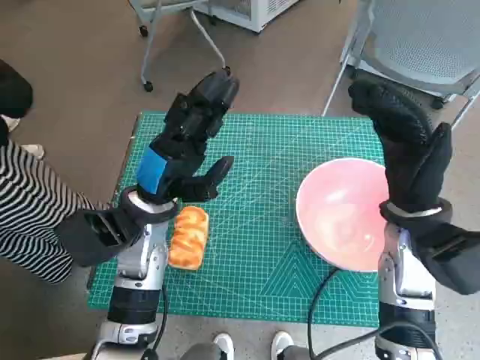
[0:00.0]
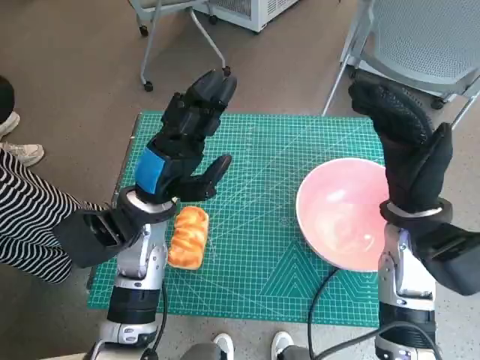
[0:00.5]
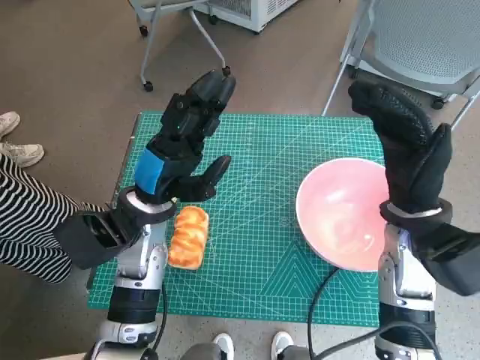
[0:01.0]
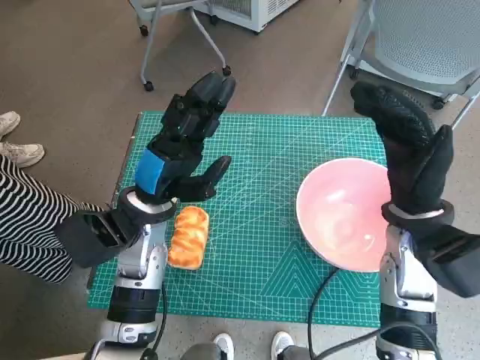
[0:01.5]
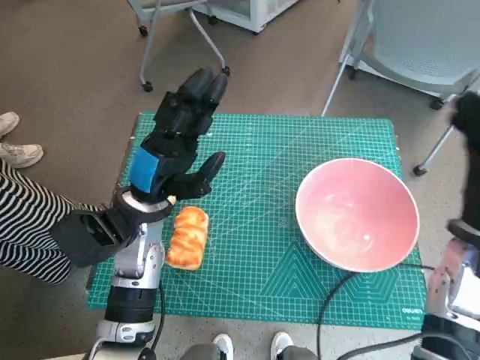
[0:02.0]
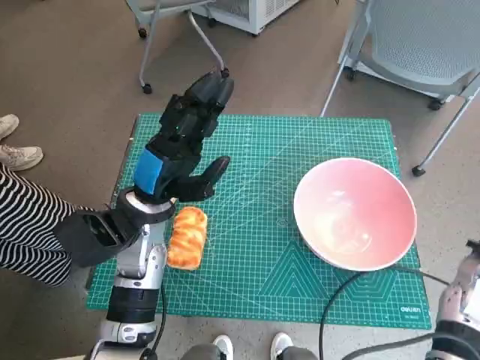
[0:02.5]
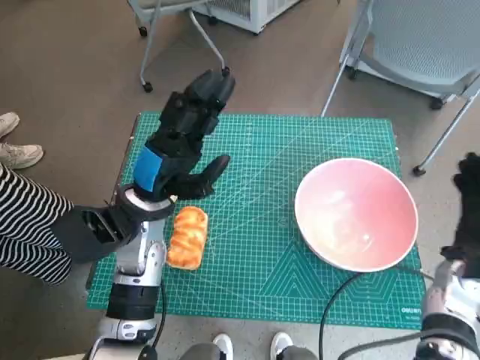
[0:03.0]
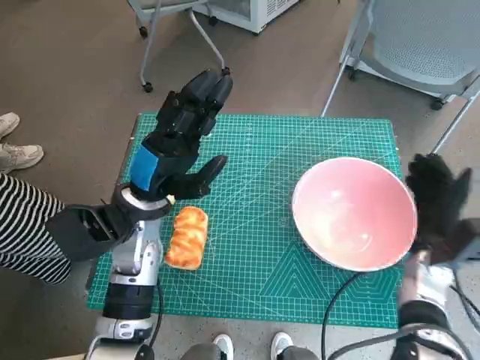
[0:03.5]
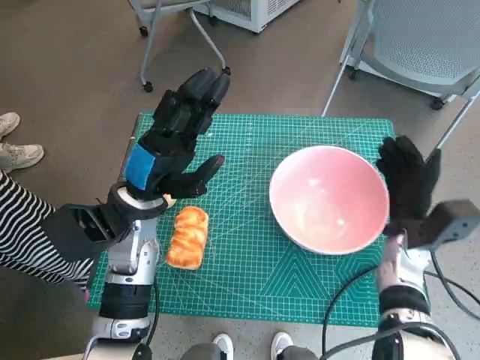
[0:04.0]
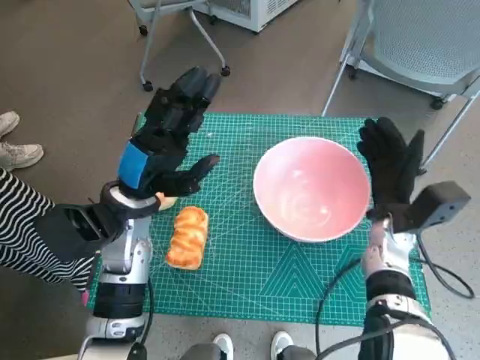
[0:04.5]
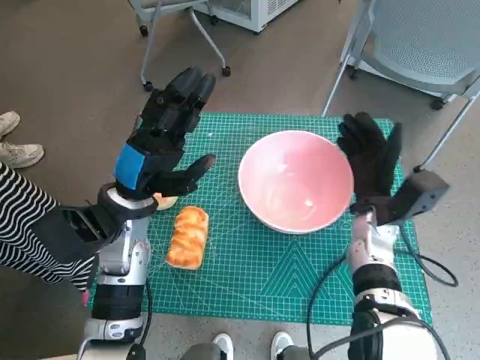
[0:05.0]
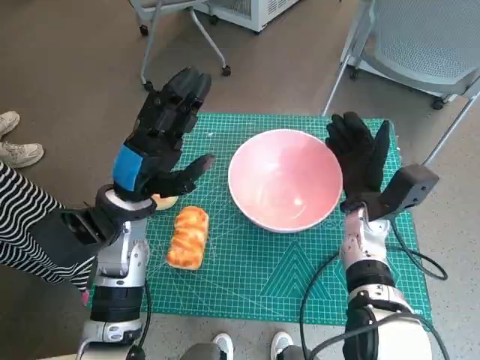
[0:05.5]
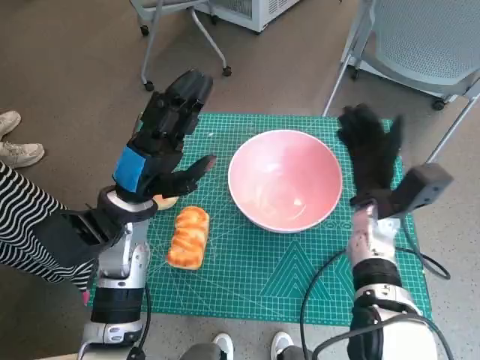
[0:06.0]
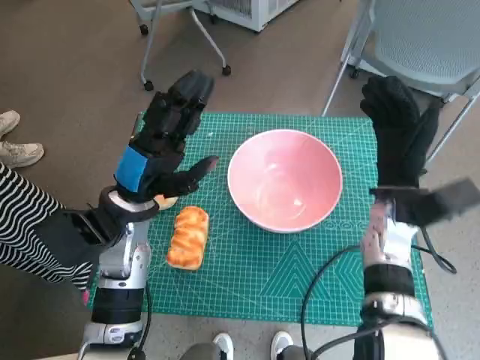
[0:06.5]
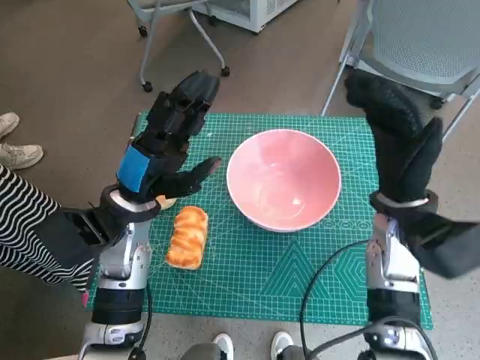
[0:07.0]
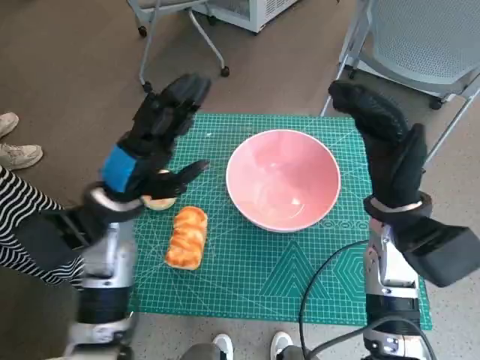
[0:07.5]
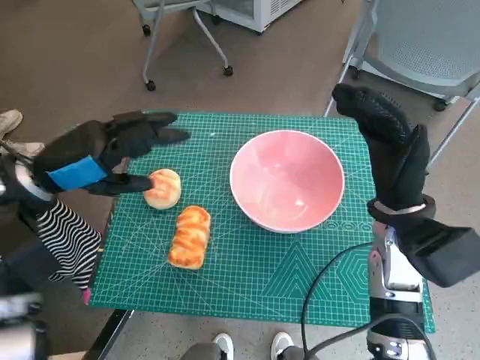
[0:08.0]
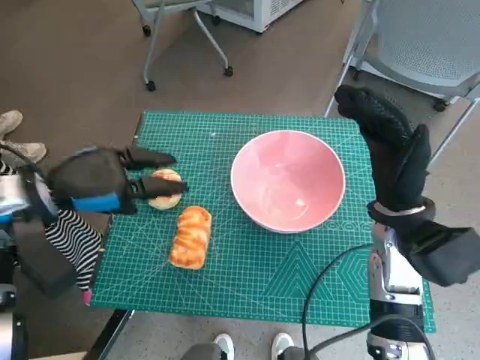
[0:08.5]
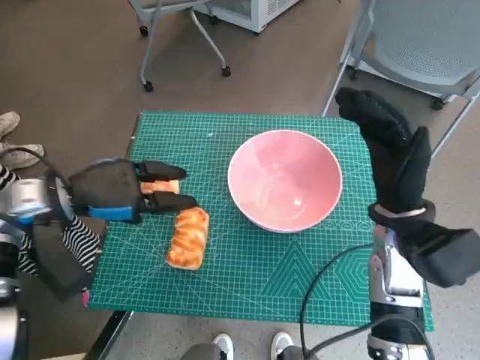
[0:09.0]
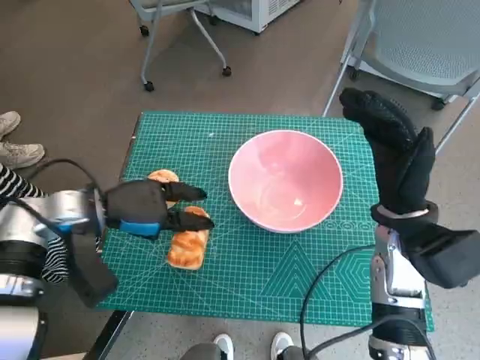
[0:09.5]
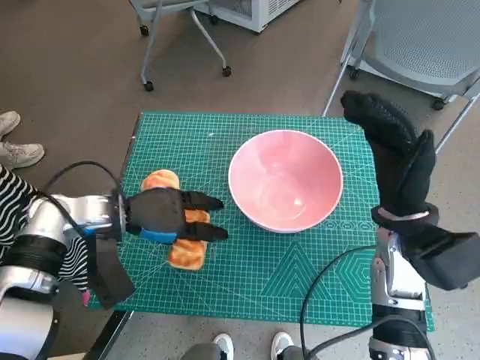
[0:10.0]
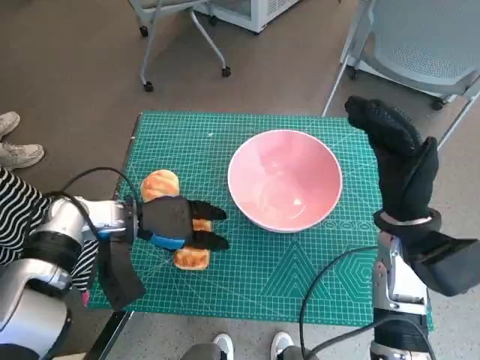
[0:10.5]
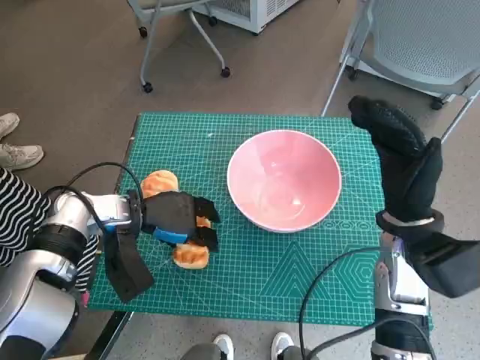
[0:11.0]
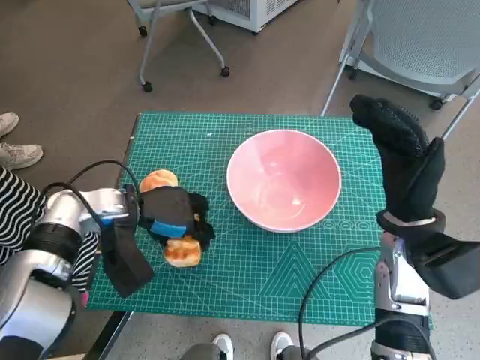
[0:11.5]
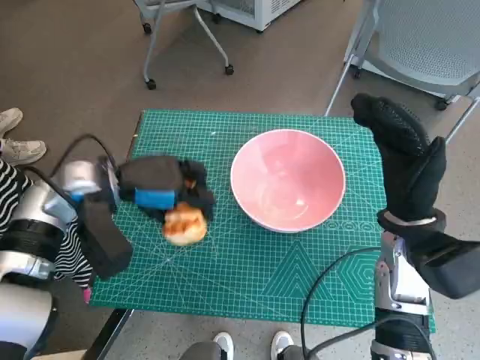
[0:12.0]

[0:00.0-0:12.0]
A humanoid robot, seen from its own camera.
Task of the whole recording: Push the bowl into the center of the table and put the bread into the bowl.
Step, 0:00.0 to 0:06.0: Move the pink bowl to the center of table with right hand.
Step, 0:06.5 to 0:11.0: Grasp the long bread with left hand.
0:02.0 to 0:04.0: The right hand moves downward, some 10 cm.
0:04.0 to 0:06.0: The right hand goes about 5 cm to the left.
0:06.0 to 0:08.0: The left hand moves to the left and upward, about 10 cm. The right hand goes approximately 10 cm upward.
0:08.0 to 0:10.0: The left hand shifts approximately 10 cm downward.

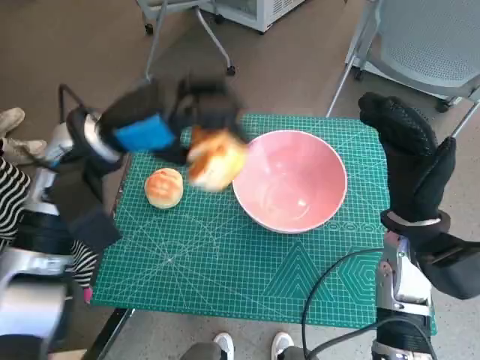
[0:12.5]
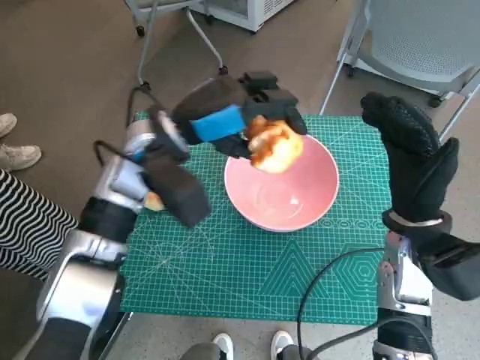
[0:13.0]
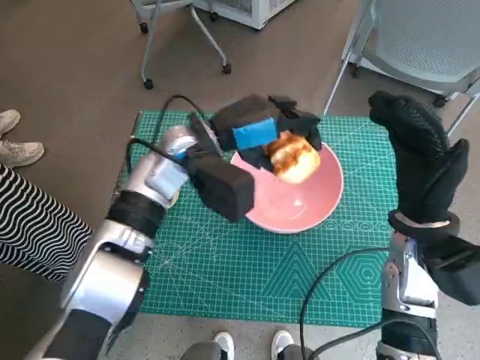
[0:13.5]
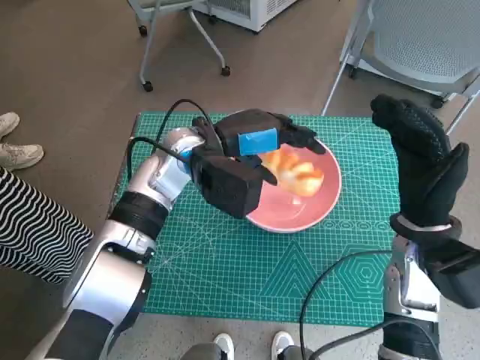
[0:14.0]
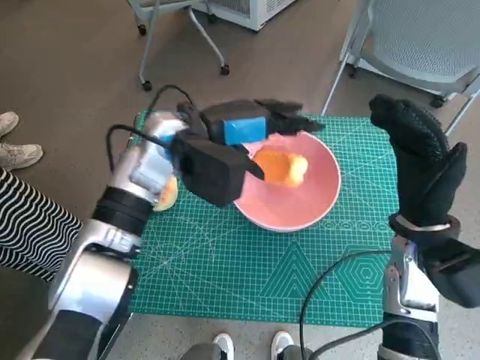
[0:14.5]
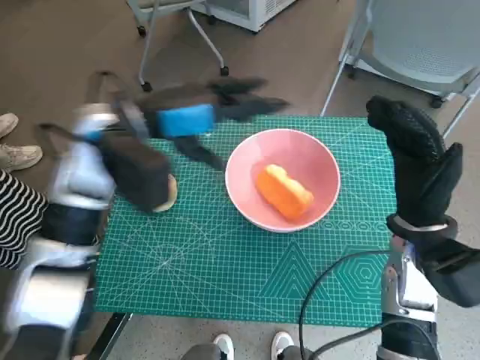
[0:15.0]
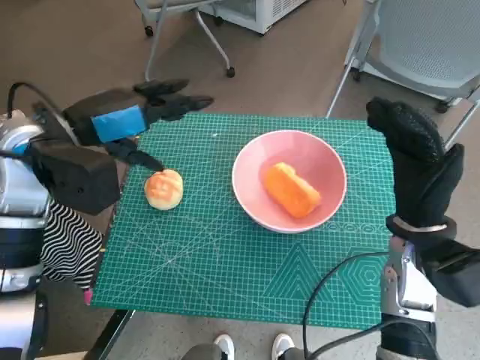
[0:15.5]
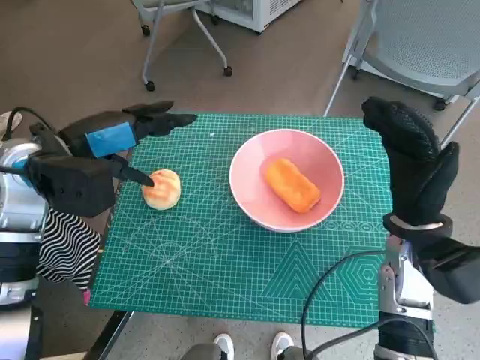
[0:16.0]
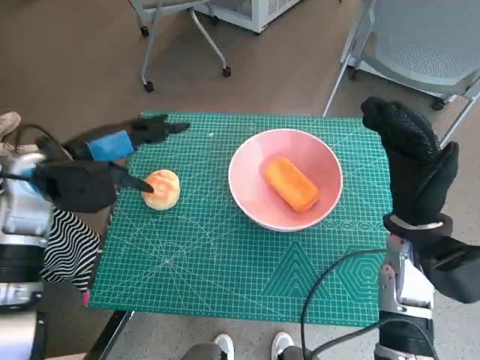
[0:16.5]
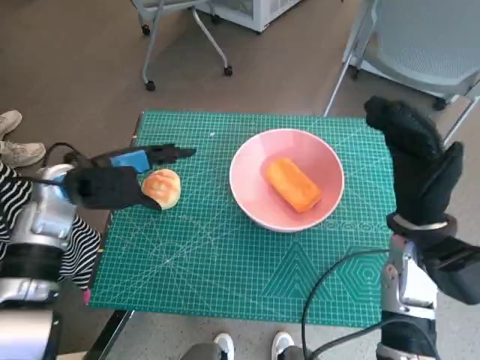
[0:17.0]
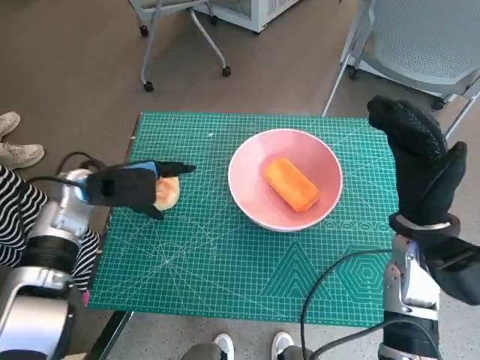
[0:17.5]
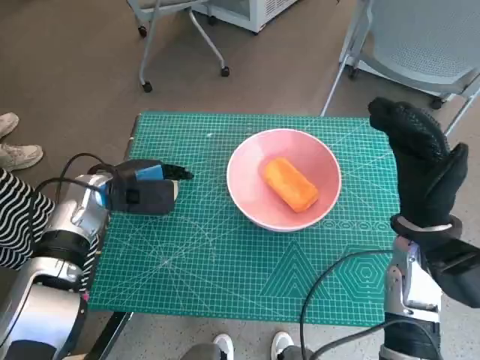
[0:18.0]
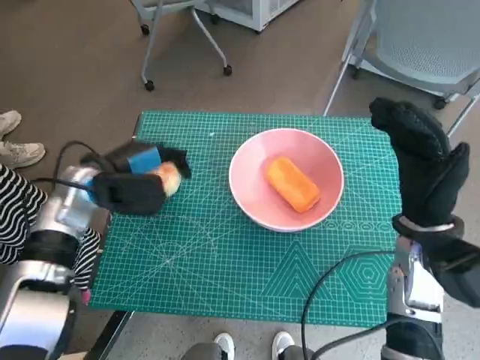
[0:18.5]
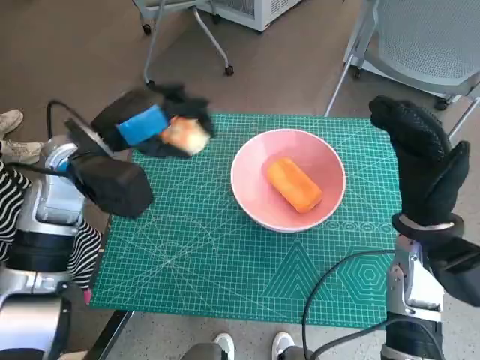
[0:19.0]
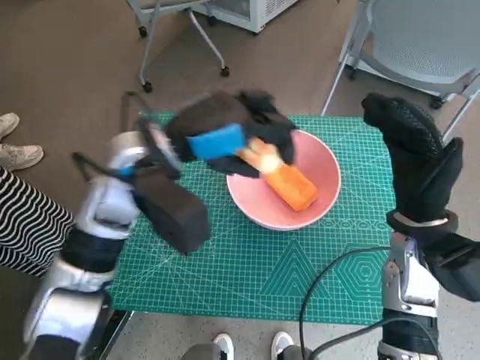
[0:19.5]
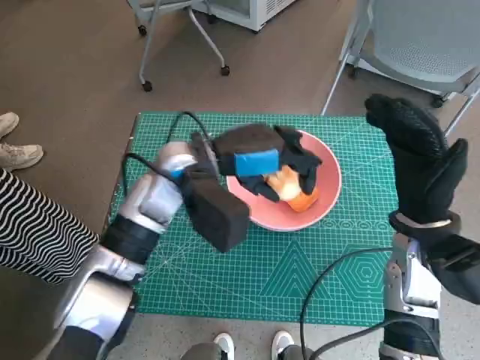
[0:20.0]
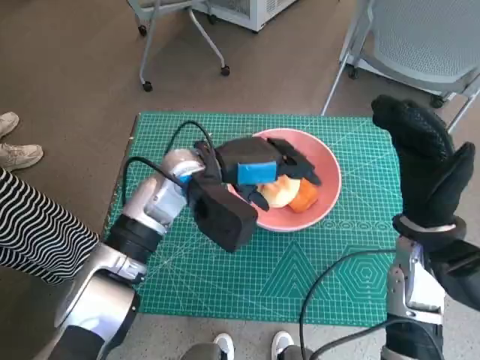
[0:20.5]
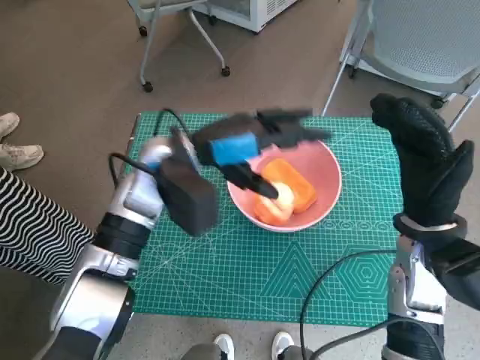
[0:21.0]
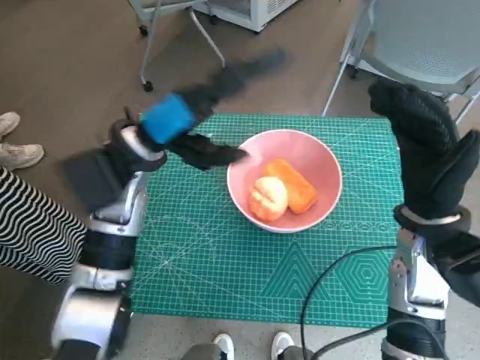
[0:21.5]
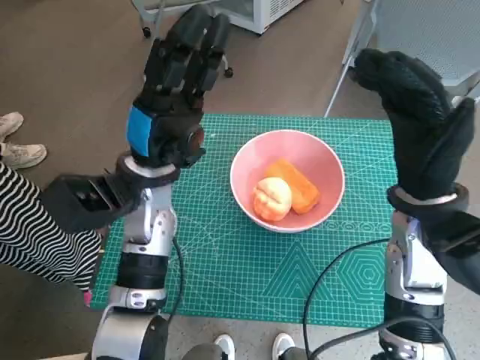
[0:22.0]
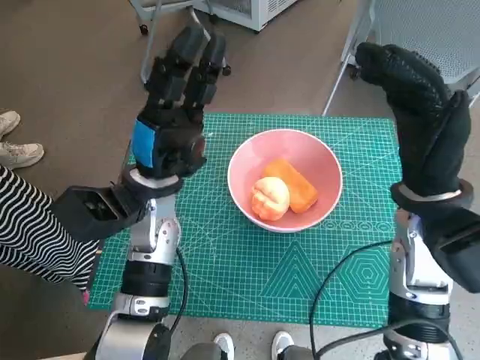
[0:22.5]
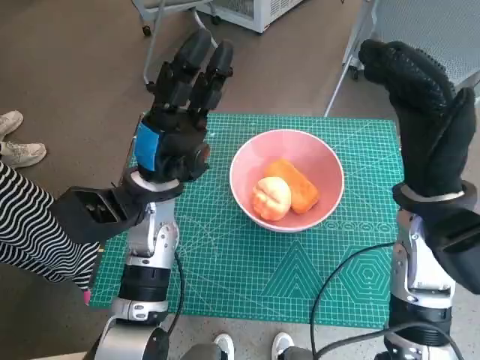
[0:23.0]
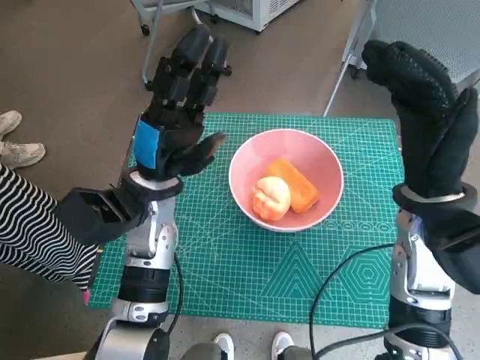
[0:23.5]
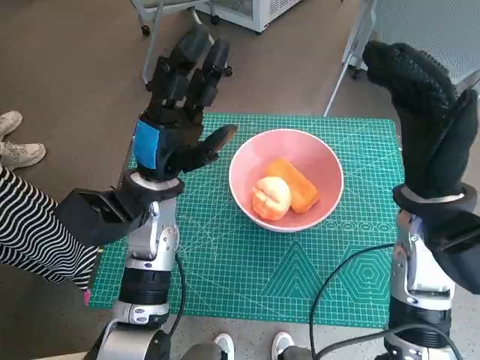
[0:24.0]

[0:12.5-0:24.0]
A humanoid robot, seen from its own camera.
Task of the whole recording: Push the bowl into the center of the table and put the bread into the bowl.
Step, 0:12.5 to 0:14.0: Place the long bread in pink bowl with left hand.
Step, 0:14.5 to 0:18.0: Grasp the round bread with left hand.
Step, 0:18.5 to 0:20.5: Place the round bread in pink bowl with left hand.
0:12.5 to 0:14.5: The left hand goes some 10 cm to the right.
0:14.5 to 0:16.5: The left hand heads to the left, covering roughly 15 cm.
0:16.5 to 0:18.5: The left hand is displaced downward by some 10 cm.
0:18.5 to 0:20.0: The left hand heads to the right and upward, covering approximately 15 cm.
0:20.0 to 0:22.0: The right hand shifts by about 5 cm. Meanwhile the left hand is displaced to the left by about 5 cm.

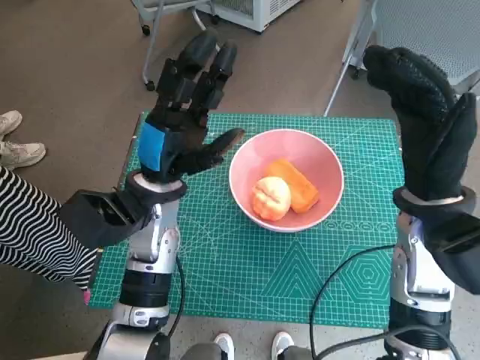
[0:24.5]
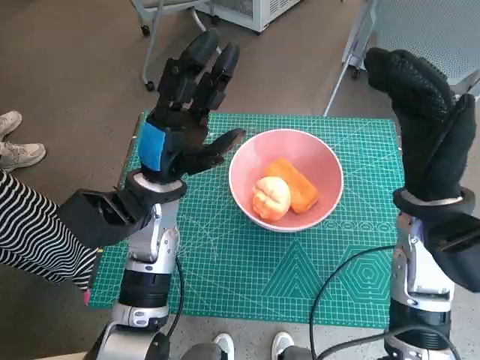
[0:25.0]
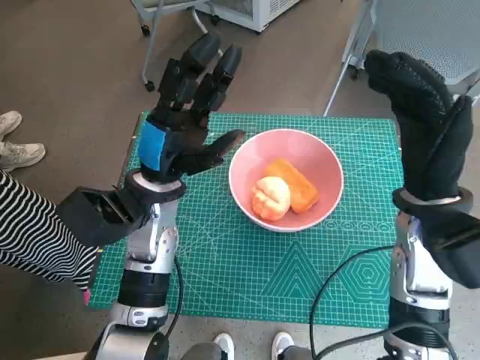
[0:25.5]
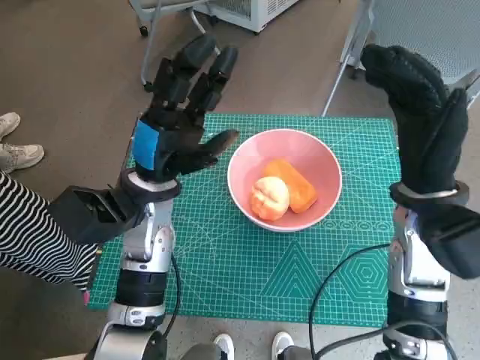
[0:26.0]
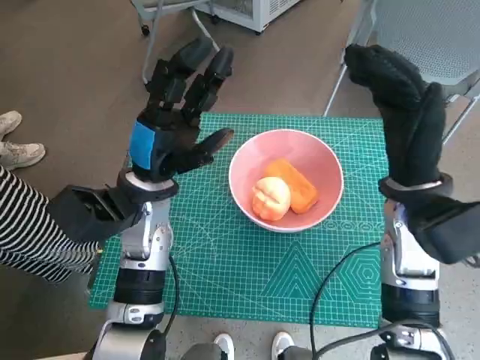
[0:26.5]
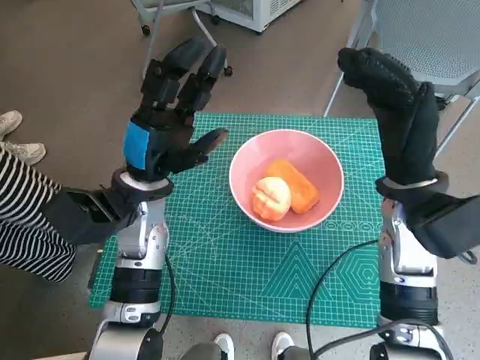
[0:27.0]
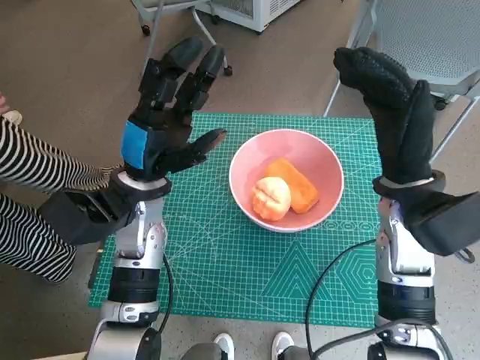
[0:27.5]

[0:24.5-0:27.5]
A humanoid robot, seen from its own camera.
Task of the whole recording: Push the bowl into the center of the table and put the bread into the bowl.
0:24.5 to 0:26.0: Both hands stay put.
